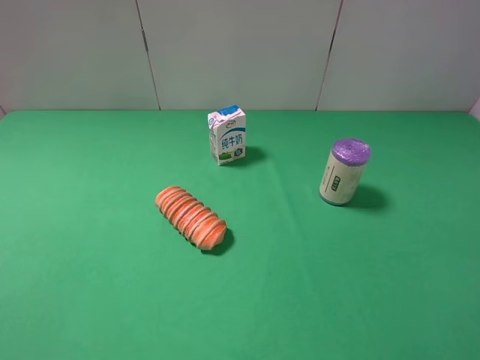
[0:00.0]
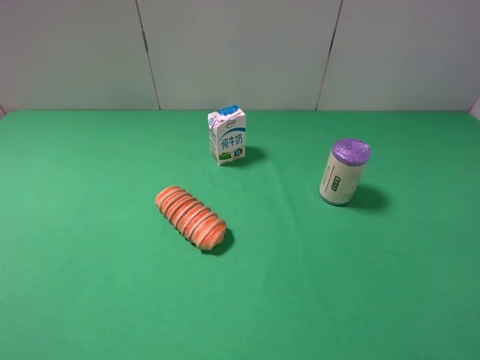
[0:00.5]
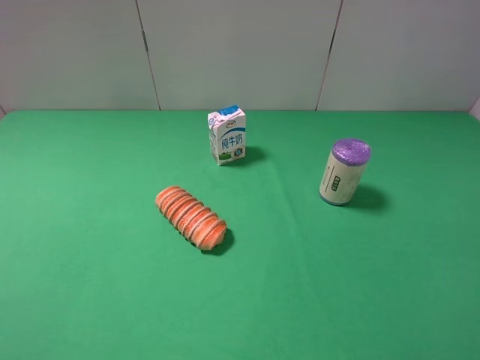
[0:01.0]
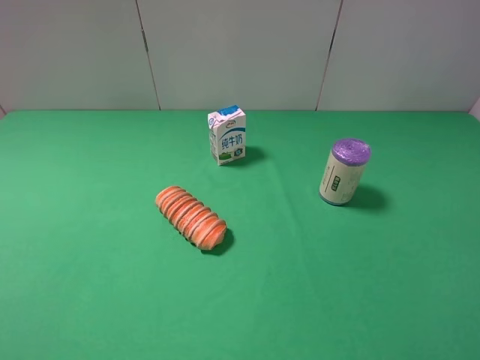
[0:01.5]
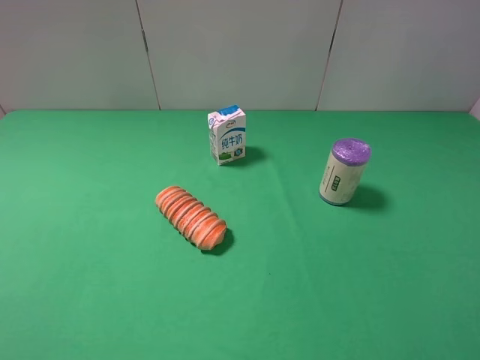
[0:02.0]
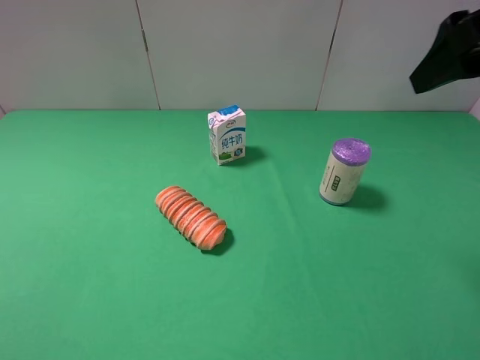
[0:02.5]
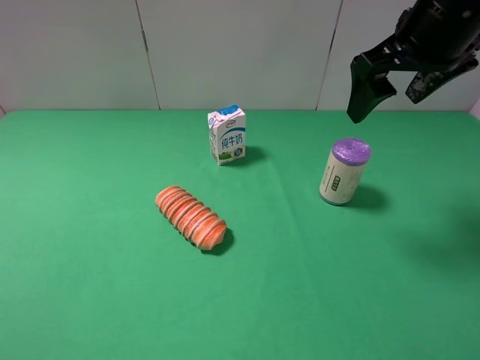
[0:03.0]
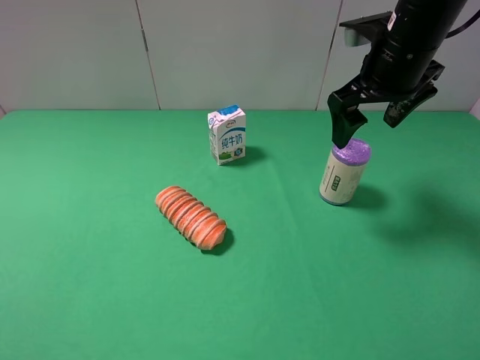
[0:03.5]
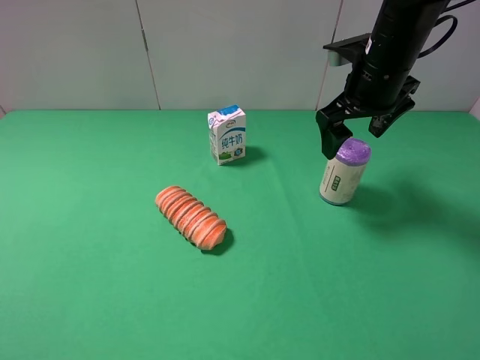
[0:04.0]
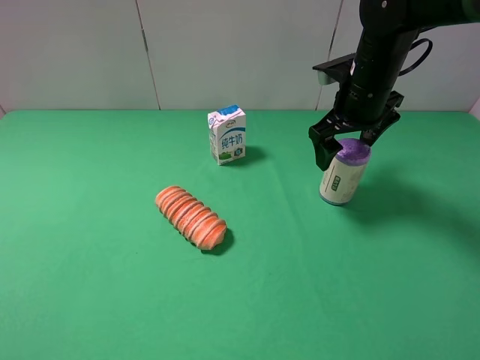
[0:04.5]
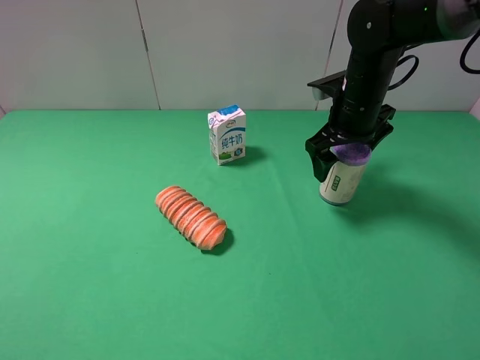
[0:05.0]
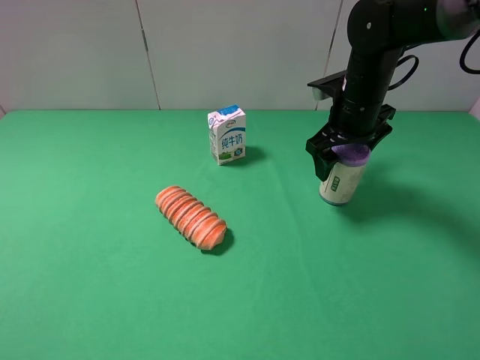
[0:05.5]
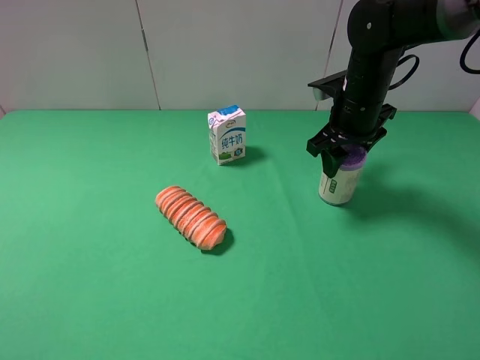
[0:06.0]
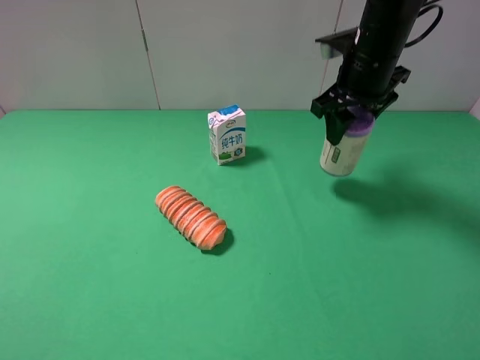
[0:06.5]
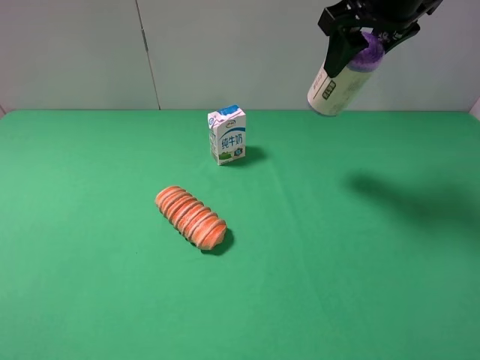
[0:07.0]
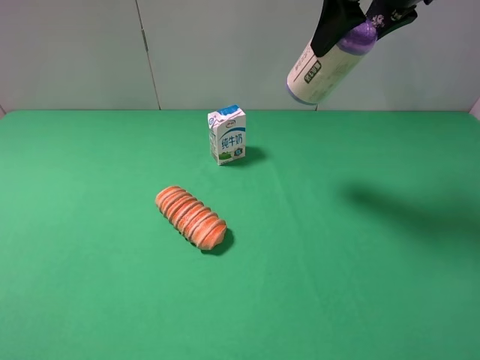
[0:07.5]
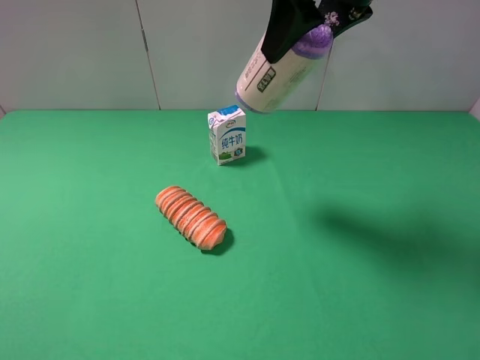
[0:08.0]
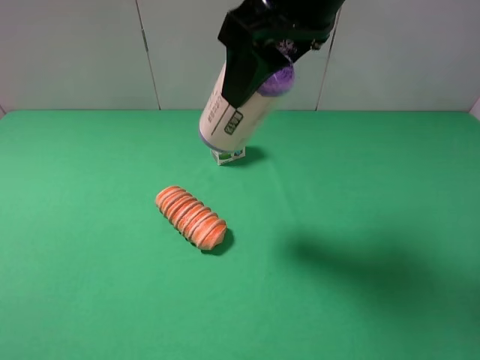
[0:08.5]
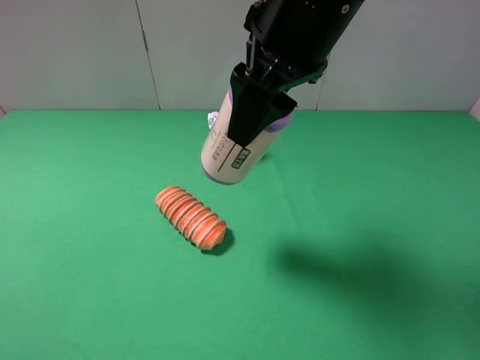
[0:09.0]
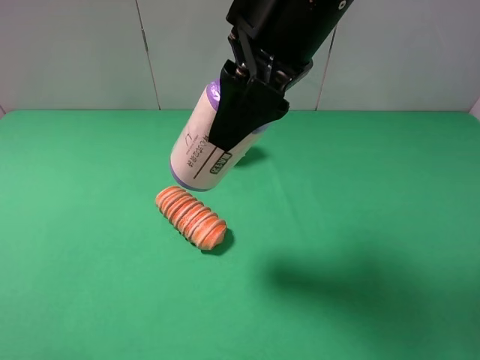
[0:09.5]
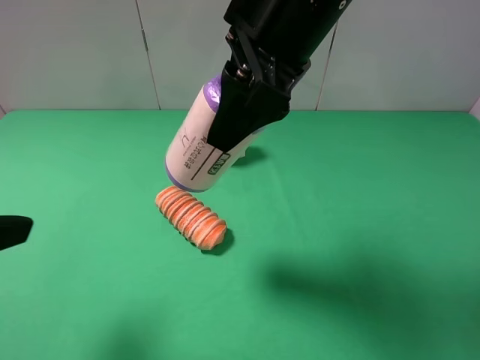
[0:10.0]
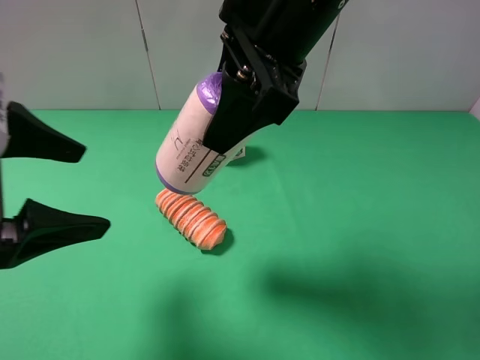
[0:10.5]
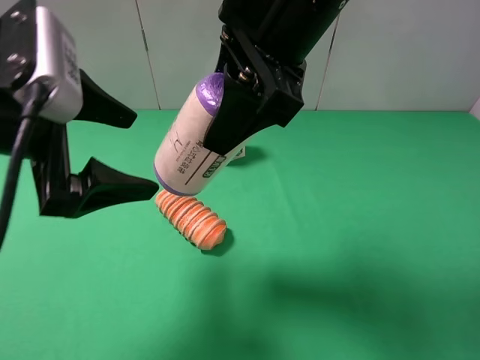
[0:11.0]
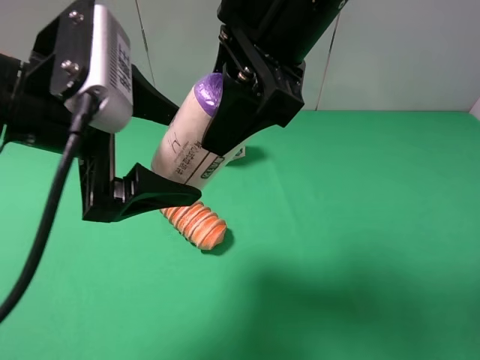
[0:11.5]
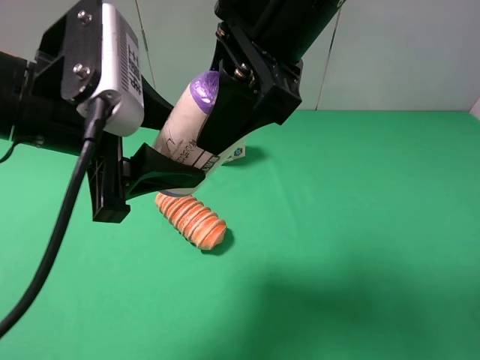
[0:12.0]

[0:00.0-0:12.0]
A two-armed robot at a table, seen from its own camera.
Task of the whole recording: use the right gripper to pick up the item and transfer it from the right gripper to the left gripper.
Step, 0:00.0 to 0:05.5: Use the right gripper to grab the purple garbage bag on the right side of the table.
0:02.0 to 0:04.0: The right gripper heads forward, downward and to the left, covering about 30 cm.
0:04.0 to 0:06.0: The right gripper moves downward, approximately 5 cm, and closes.
0:06.0 to 0:08.0: The right gripper shifts roughly 20 cm upward and backward.
0:08.0 to 0:10.0: The right gripper heads to the left and backward, covering roughly 10 cm, while the left gripper shifts some 10 cm forward.
0:10.0 to 0:12.0: The left gripper heads to the right and forward, covering roughly 15 cm, and closes its fingers.

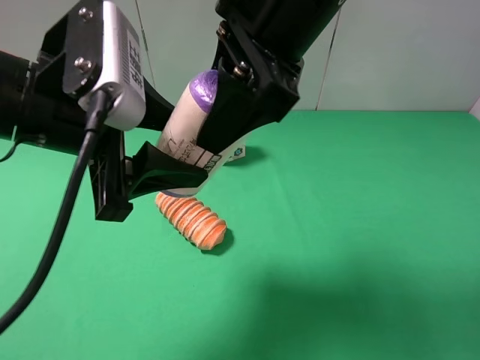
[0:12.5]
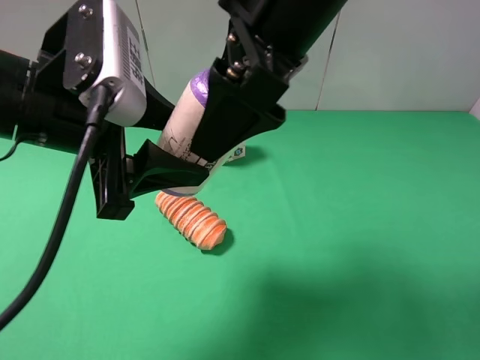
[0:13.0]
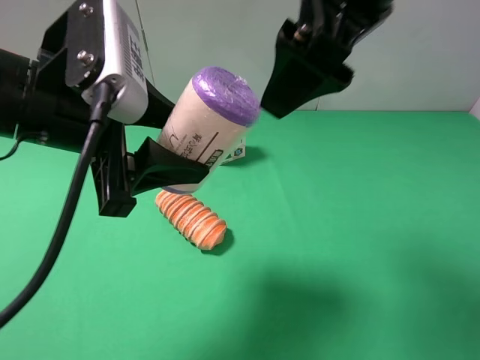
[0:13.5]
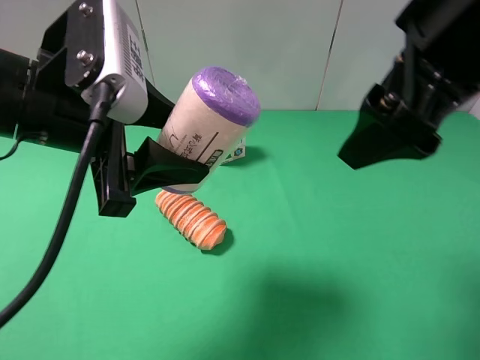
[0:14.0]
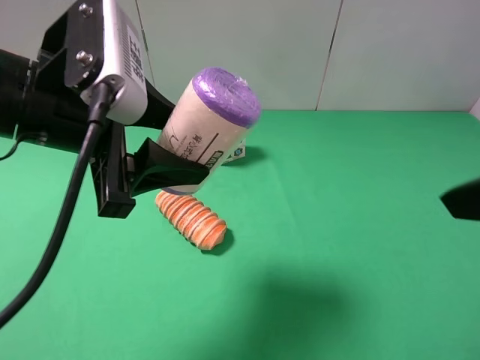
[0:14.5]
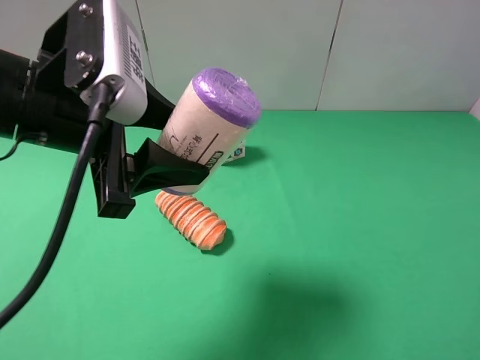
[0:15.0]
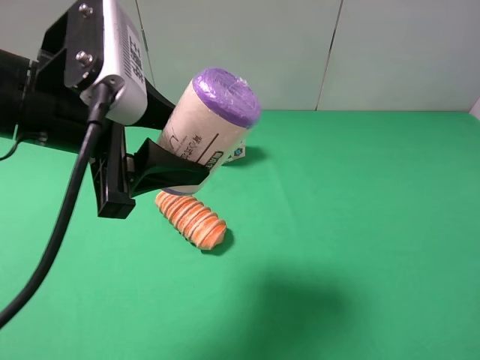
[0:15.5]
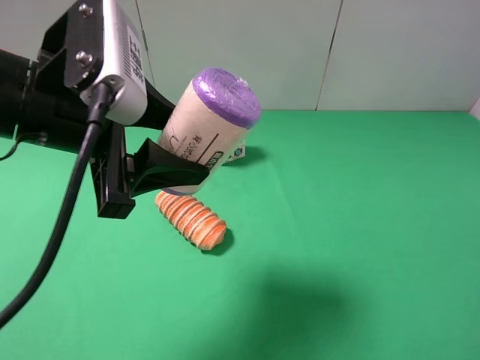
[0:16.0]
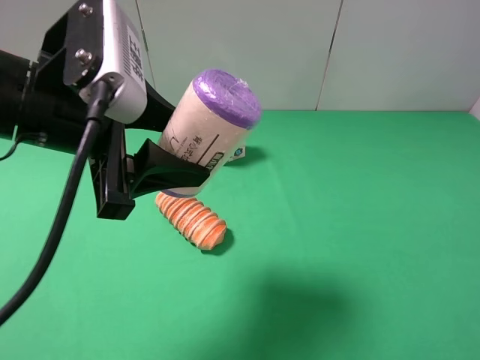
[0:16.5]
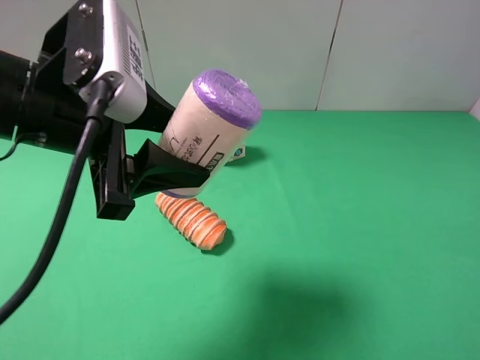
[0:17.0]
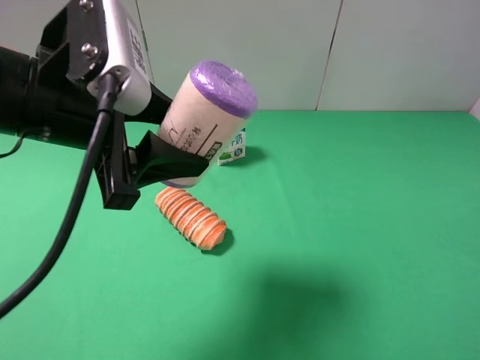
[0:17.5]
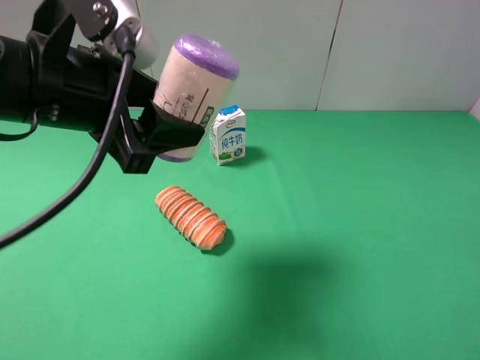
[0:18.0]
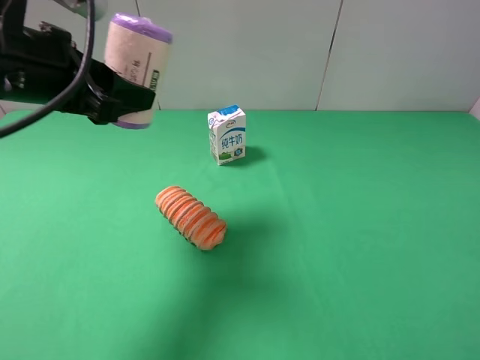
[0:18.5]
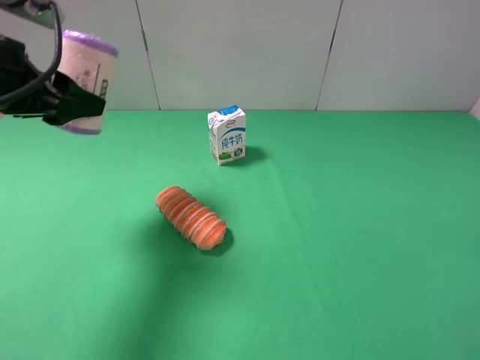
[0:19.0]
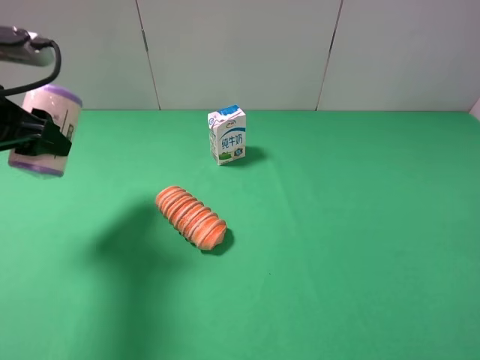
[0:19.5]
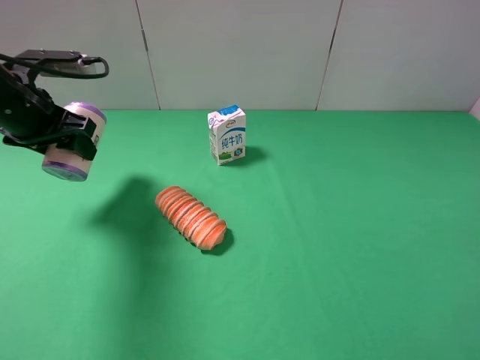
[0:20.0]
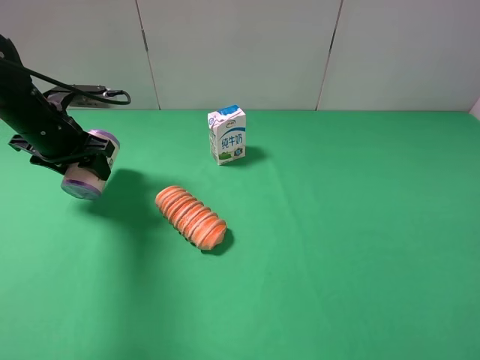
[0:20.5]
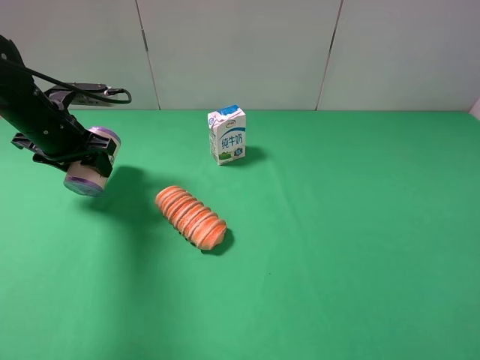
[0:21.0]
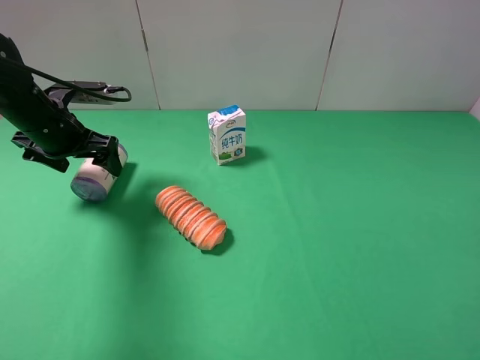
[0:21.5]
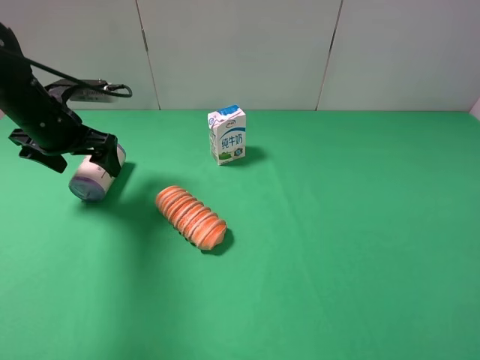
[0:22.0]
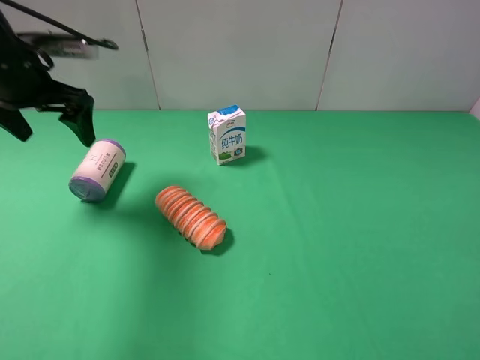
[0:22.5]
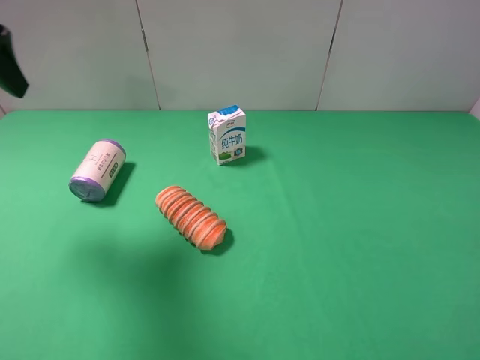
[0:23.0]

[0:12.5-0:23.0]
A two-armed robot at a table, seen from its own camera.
Task of the whole recording: use the right gripper to pick up the item and transfer it from the right gripper to the left gripper.
Step, 0:13.0 to 0:21.5: The left gripper places purple garbage bag on the left side of the table.
0:12.5 to 0:14.5: The right gripper is displaced to the right and backward by about 20 cm, and opens.
0:14.5 to 0:16.5: The right gripper travels backward, downward and to the right by roughly 10 cm.
0:16.5 to 0:19.0: The left gripper shifts approximately 15 cm to the left and forward.
0:19.0 to 0:21.0: The left gripper is displaced downward and forward by about 15 cm.
0:21.0 to 0:23.0: The left gripper heads upward and backward, covering some 20 cm, and opens.

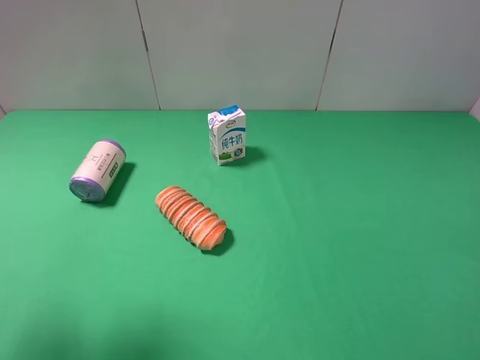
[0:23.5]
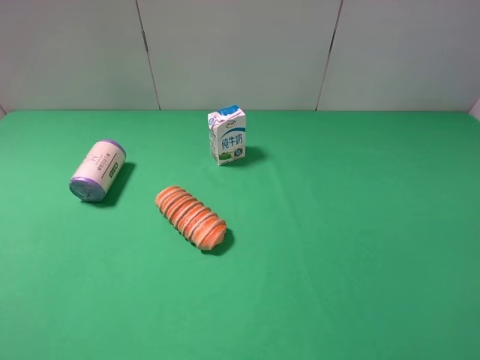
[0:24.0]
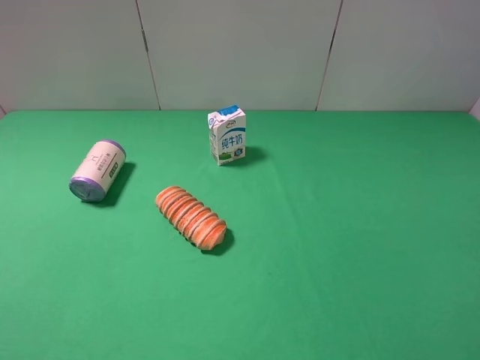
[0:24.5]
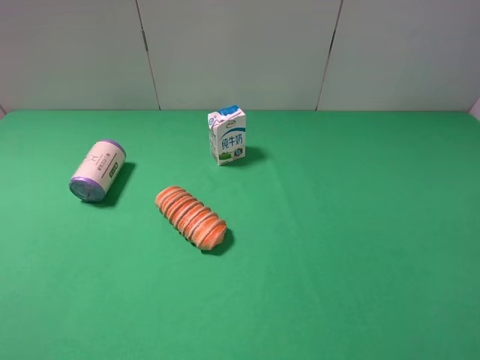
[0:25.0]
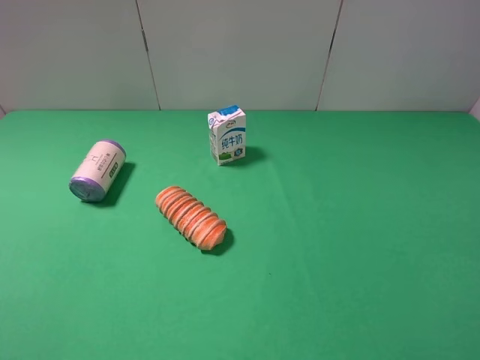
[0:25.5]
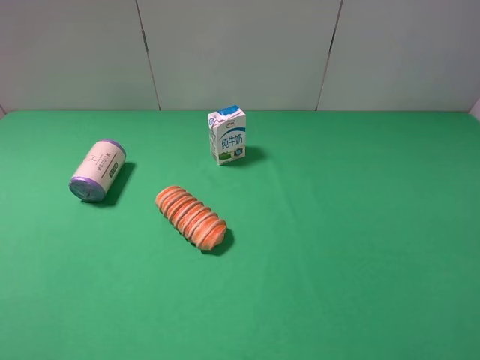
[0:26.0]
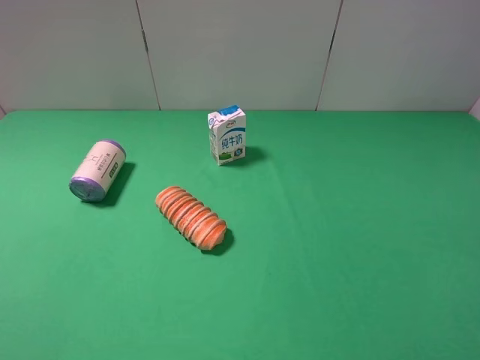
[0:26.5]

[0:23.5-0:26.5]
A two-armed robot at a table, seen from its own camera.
Task of the whole recording: use the right gripper to pick up the item and transfer it from the right gripper to the left gripper.
0:23.5 to 0:25.0: The left gripper travels backward and downward by some 10 cm.
